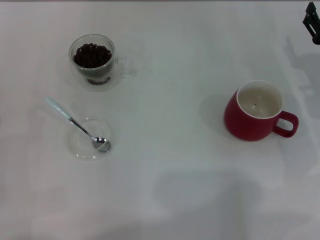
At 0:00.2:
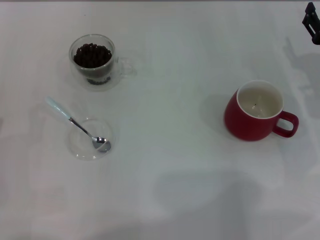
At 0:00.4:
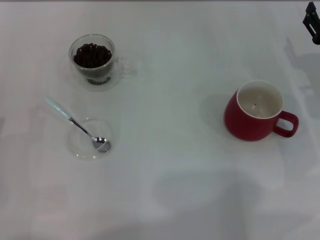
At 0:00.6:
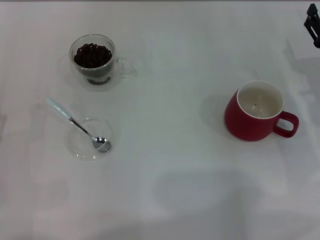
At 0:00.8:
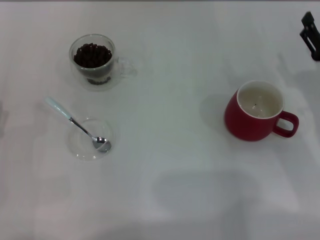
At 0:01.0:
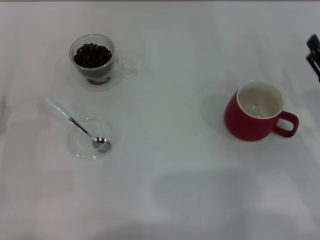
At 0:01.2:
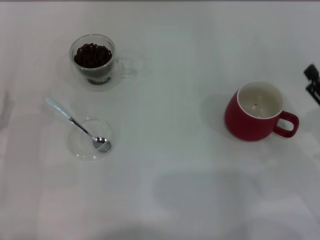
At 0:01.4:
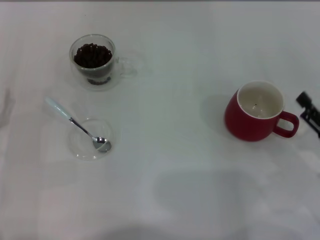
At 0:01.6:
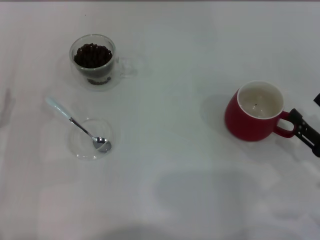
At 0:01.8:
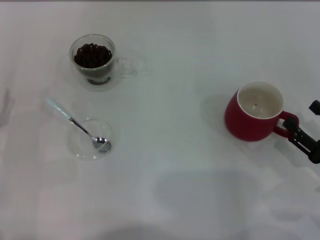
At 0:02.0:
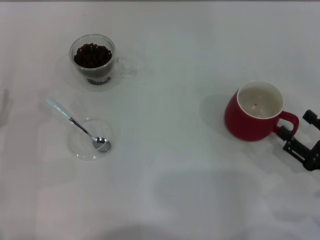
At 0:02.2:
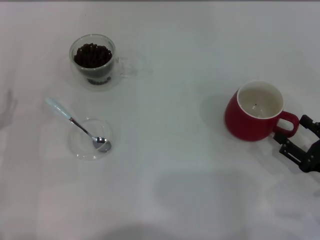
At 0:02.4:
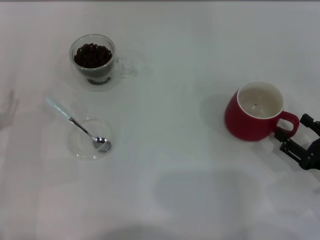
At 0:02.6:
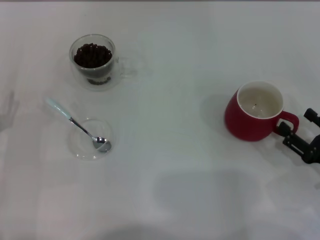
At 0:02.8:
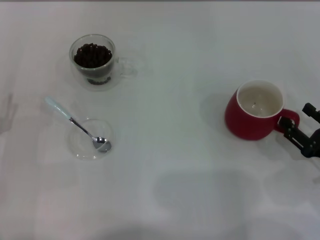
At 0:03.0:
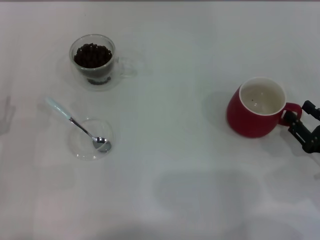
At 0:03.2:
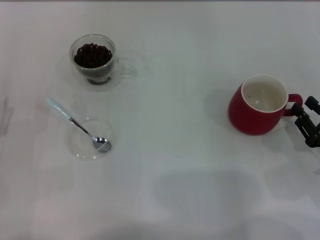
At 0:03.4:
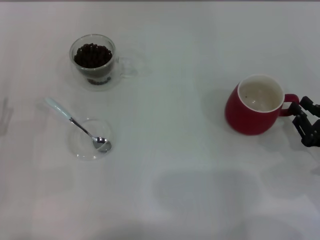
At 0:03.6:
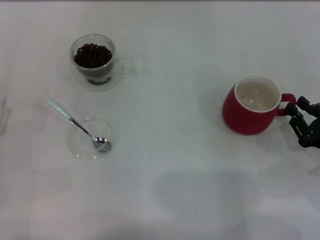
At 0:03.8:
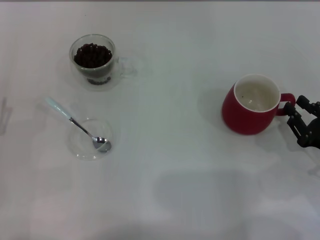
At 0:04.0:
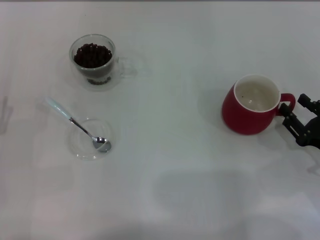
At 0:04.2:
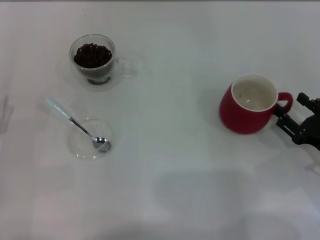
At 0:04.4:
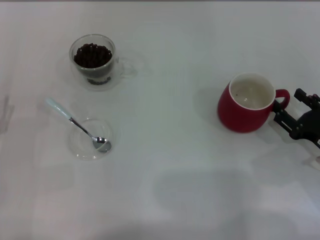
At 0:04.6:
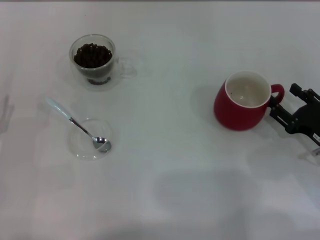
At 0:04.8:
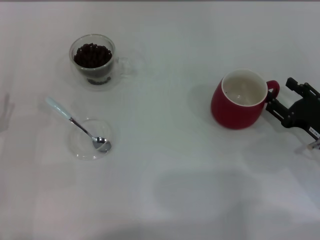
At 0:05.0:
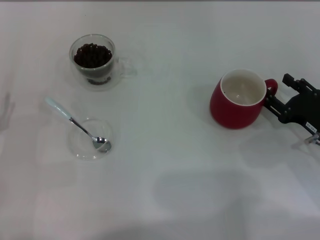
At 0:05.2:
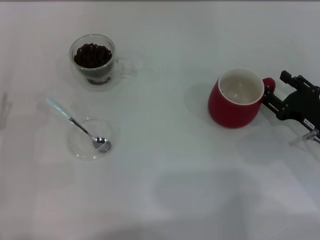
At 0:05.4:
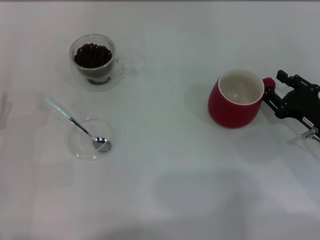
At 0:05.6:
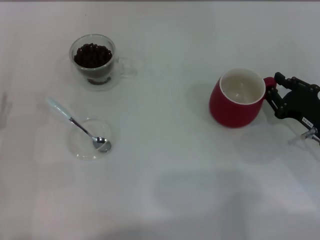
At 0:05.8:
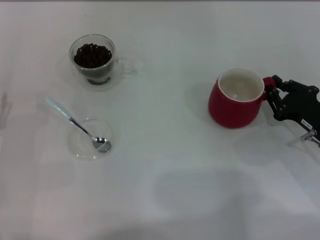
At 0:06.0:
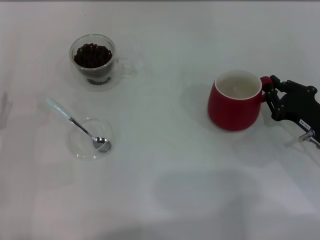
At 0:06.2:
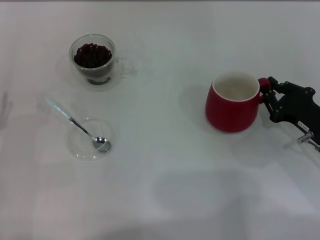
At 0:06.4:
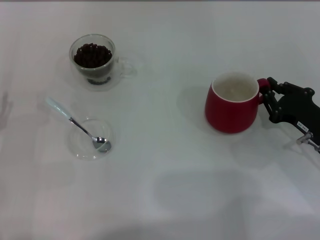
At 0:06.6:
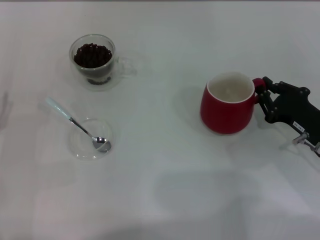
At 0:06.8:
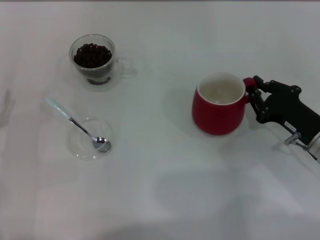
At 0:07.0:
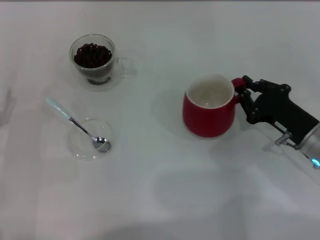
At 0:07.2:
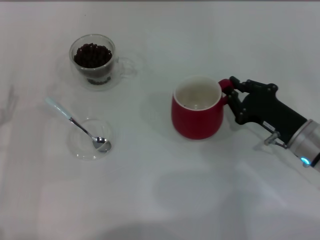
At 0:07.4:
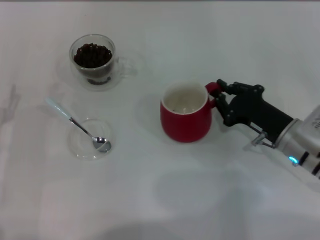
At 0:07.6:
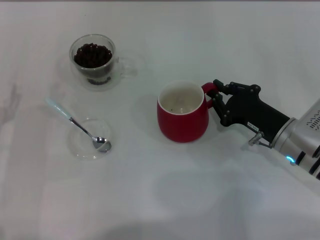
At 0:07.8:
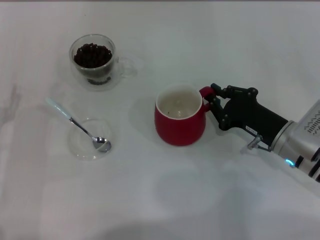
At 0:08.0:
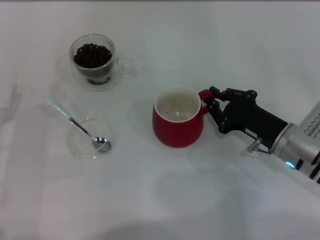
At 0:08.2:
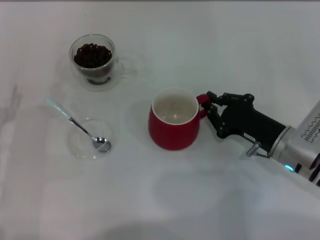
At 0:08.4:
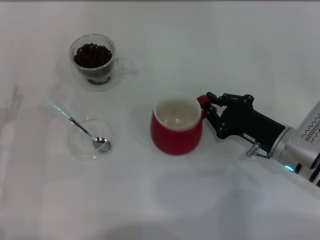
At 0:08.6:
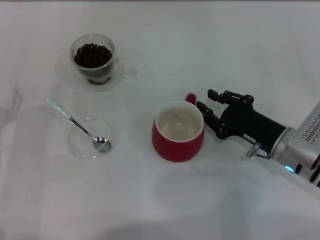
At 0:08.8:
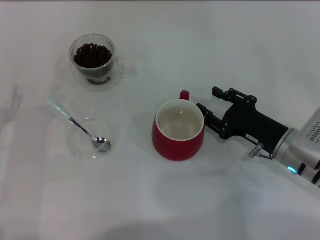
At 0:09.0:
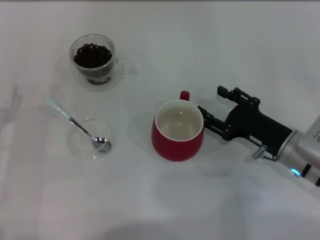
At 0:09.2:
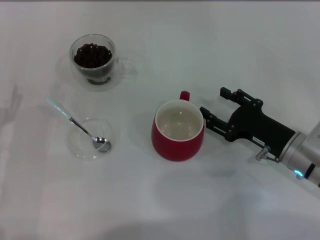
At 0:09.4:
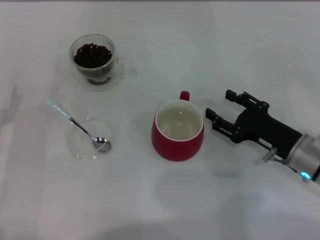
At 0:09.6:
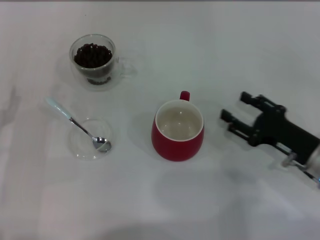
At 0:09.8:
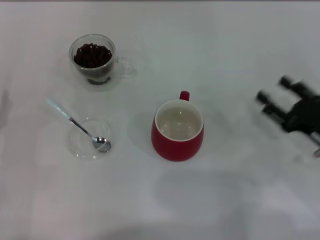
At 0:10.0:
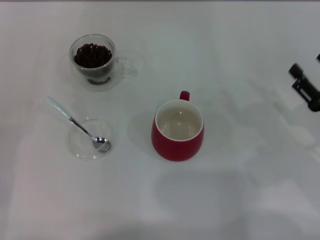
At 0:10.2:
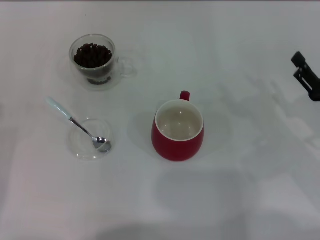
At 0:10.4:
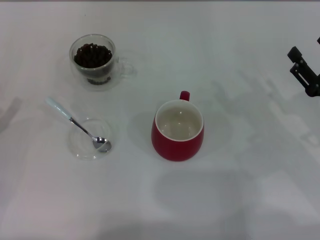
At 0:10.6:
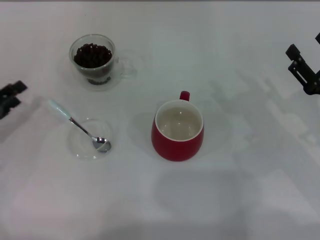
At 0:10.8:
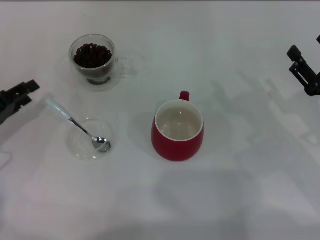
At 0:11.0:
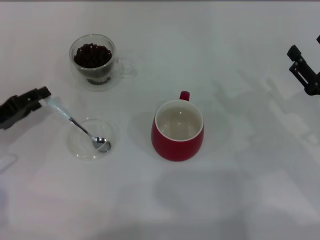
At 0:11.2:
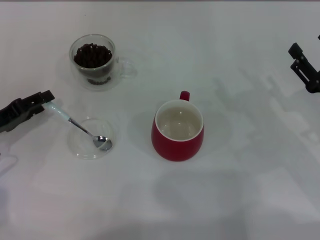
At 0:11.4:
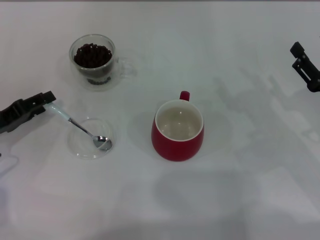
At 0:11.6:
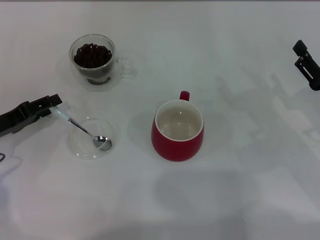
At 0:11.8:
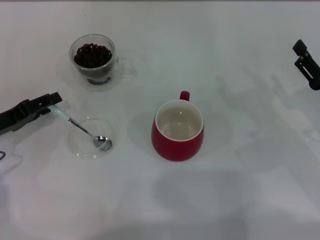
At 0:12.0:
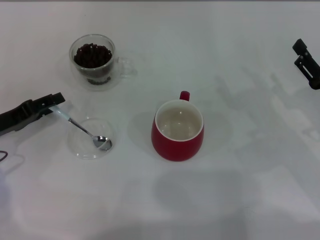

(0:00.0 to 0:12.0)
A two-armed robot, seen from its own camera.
Task of the whole recording: Use a blue spoon to take out the coffee beans from the glass and pour them into the red cup.
Step, 0:00.0 - 0:09.4: Move the cup to the center of view with the left gripper.
0:00.0 - 0:01.6: The right gripper shifts about 15 cm backward.
0:01.6 - 0:03.0: The grippers move only a little.
0:03.0 - 0:04.4: The right gripper closes, then reopens.
0:04.4 - 0:06.0: The right gripper closes its fingers.
0:06.0 - 0:07.6: The right gripper goes about 5 cm to the left.
0:07.6 - 0:09.0: The right gripper opens its fingers.
0:09.0 - 0:10.4: The left gripper heads to the left, covering approximately 5 cm. The right gripper goes some 10 cm to the right.
0:10.4 - 0:12.0: The left gripper shifts some 5 cm forward.

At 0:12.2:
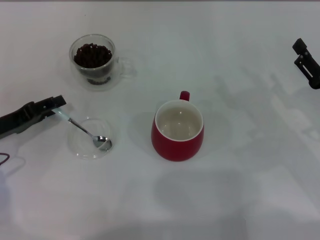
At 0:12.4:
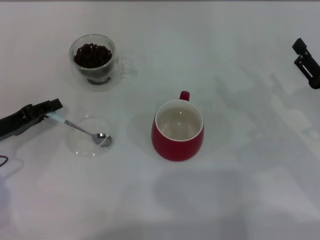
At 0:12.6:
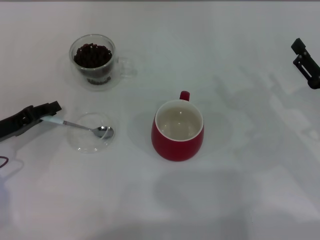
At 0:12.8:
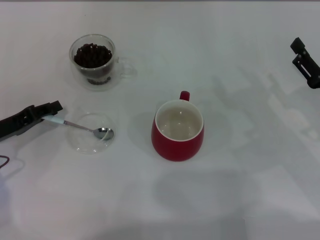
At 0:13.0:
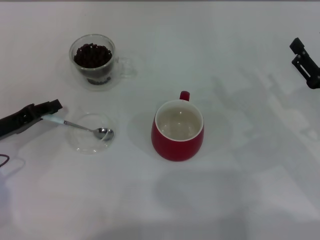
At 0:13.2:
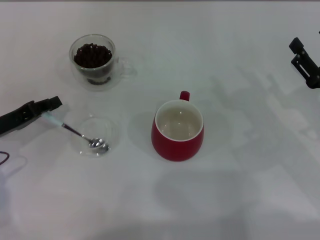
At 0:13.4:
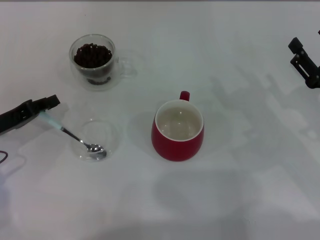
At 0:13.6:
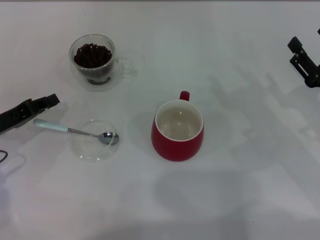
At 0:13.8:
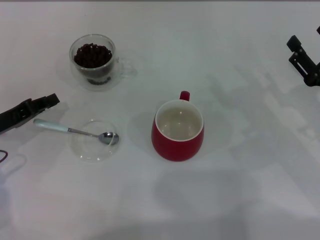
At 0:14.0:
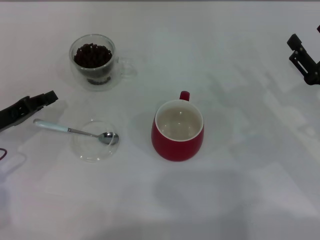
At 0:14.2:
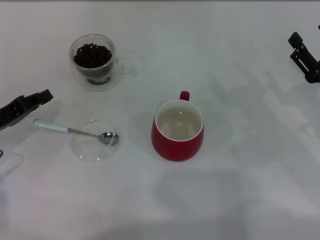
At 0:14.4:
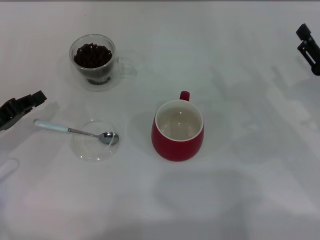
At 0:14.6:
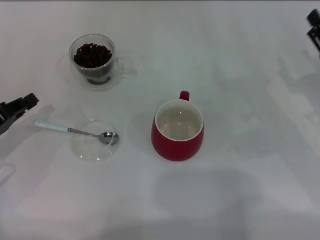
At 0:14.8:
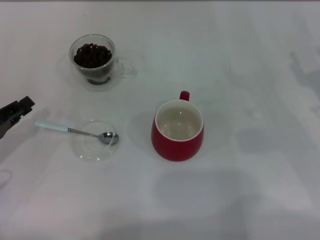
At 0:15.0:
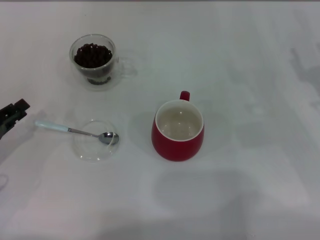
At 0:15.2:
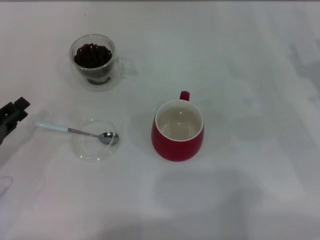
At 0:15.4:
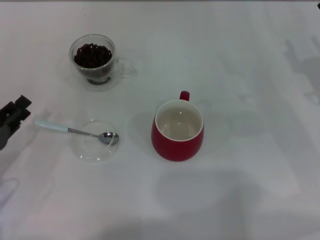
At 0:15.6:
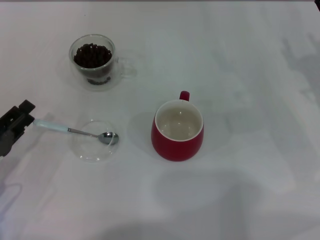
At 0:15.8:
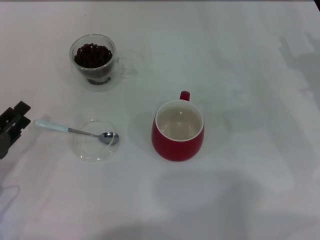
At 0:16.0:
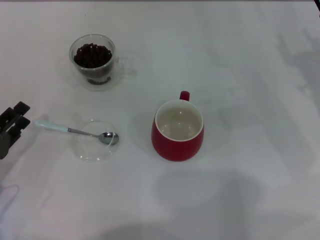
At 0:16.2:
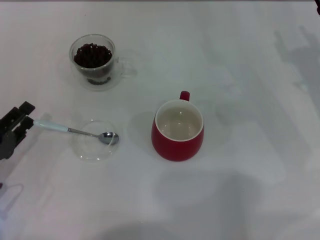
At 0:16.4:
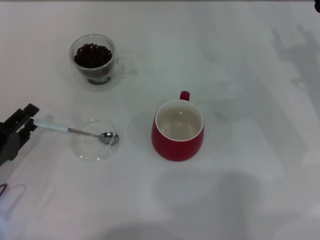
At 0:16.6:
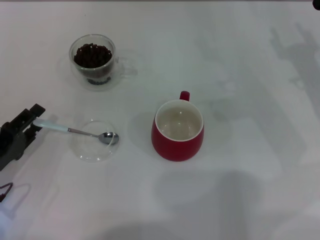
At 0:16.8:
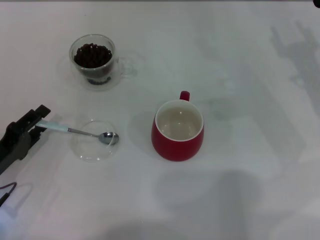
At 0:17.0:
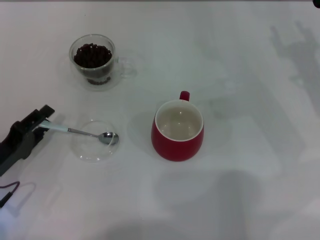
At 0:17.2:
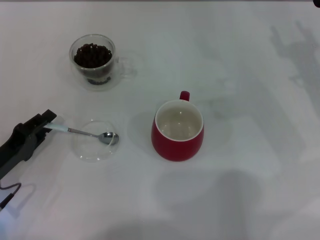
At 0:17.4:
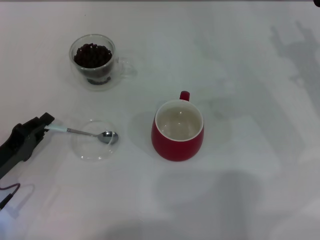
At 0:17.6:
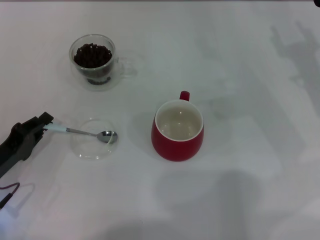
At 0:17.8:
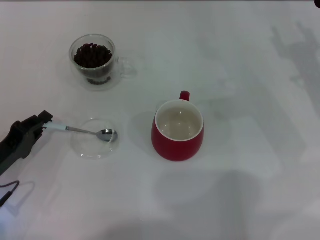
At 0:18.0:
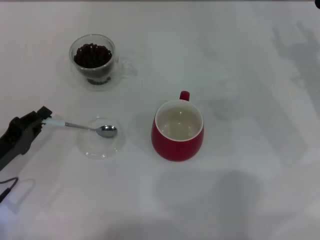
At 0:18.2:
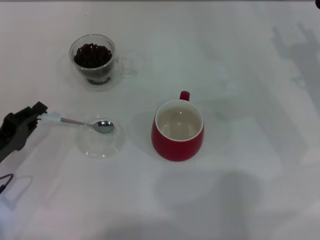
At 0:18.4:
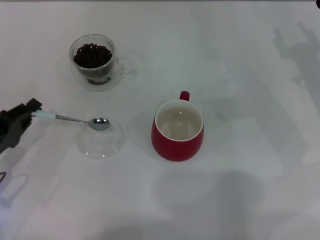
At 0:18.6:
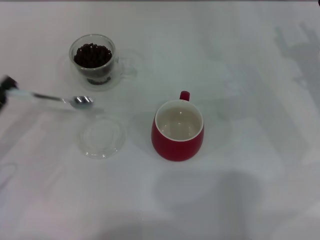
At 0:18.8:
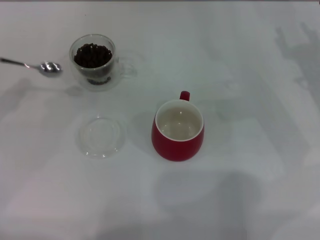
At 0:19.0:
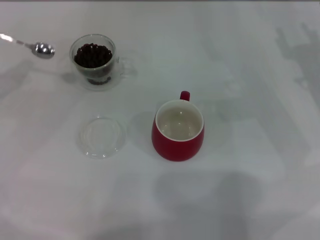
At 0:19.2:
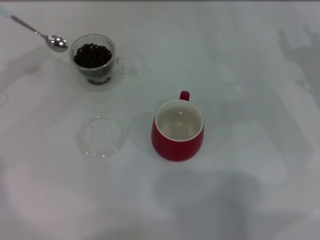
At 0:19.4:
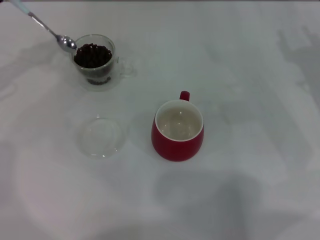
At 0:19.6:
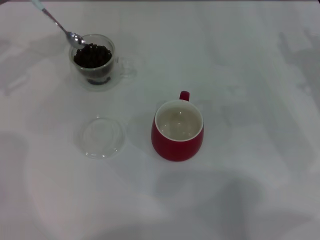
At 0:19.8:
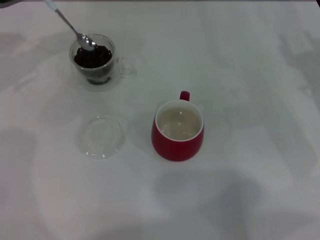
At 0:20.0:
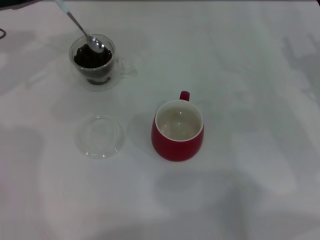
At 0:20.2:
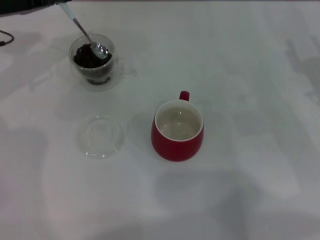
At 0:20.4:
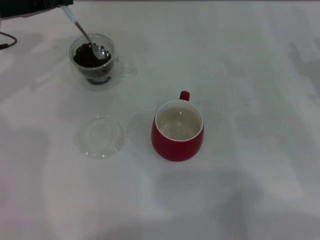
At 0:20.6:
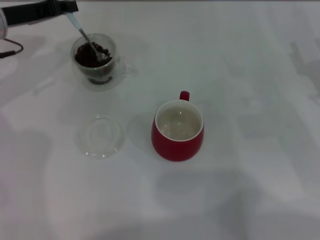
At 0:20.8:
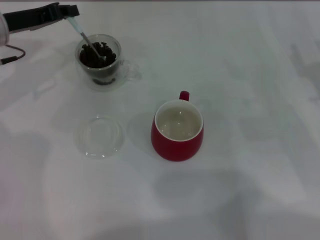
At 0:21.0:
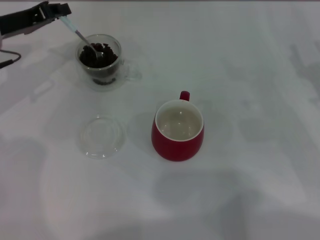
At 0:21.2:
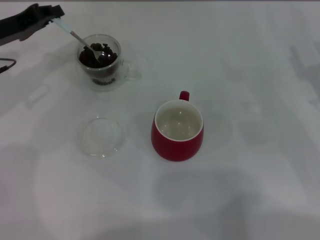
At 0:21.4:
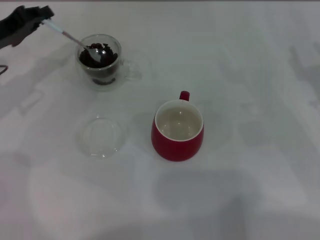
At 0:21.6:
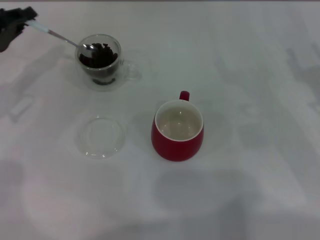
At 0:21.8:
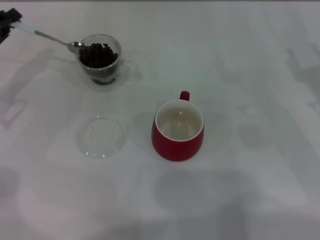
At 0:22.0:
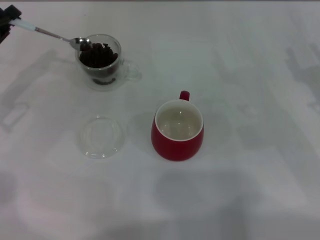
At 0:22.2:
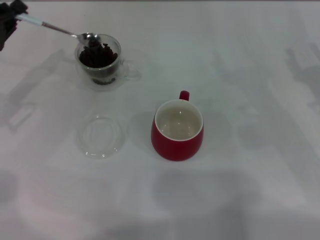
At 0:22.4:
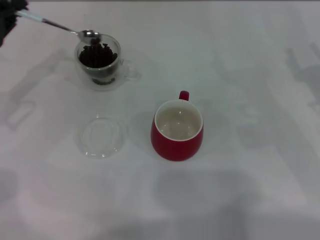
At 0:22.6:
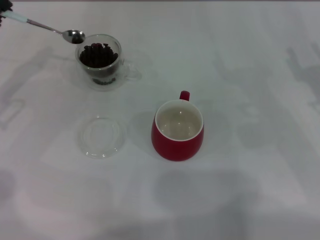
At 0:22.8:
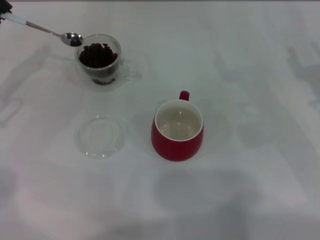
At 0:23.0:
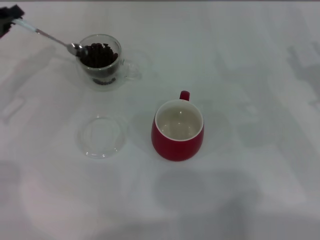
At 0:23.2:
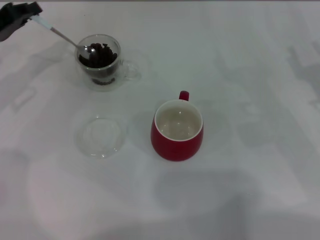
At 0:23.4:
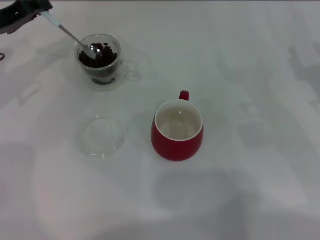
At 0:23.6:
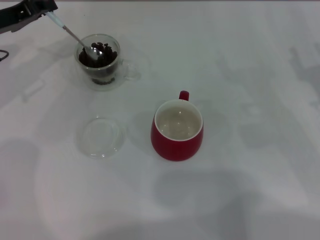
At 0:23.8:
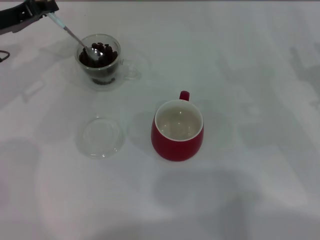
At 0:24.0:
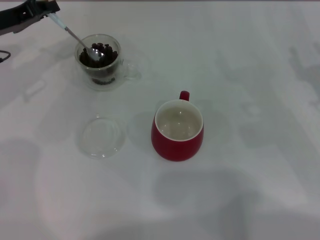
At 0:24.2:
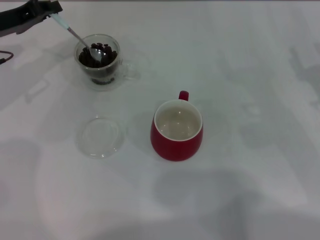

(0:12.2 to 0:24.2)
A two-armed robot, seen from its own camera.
Task of the whole recording: Use a blue spoon to take out the coffee beans from the glass and pour them into the red cup.
Step, 0:12.2 - 0:18.4: Pick up the spoon with the right gripper.
0:12.2 - 0:13.8: The left gripper closes its fingers.
0:13.8 - 0:15.2: The left gripper shifts roughly 5 cm backward.
0:16.6 - 0:18.2: The left gripper closes up.
0:18.2 - 0:19.8: The left gripper travels forward and upward by approximately 25 cm.
0:19.8 - 0:21.2: The left gripper moves about 5 cm.
0:21.2 - 0:22.6: The left gripper travels backward and to the left by roughly 10 cm.
0:22.6 - 0:24.2: The left gripper is displaced forward and to the right by roughly 10 cm.
